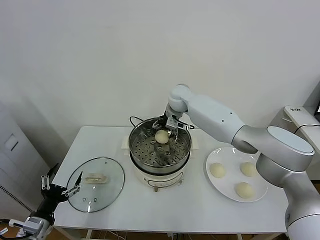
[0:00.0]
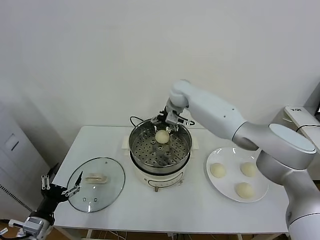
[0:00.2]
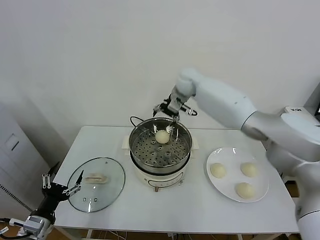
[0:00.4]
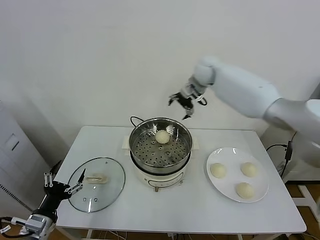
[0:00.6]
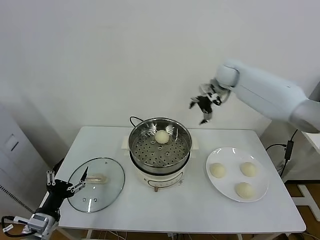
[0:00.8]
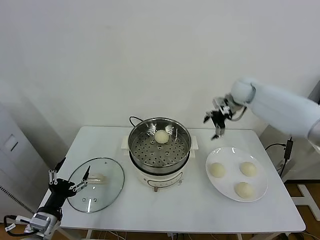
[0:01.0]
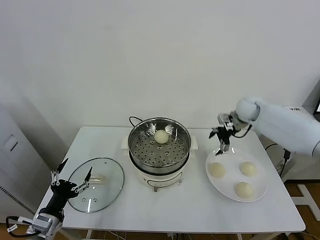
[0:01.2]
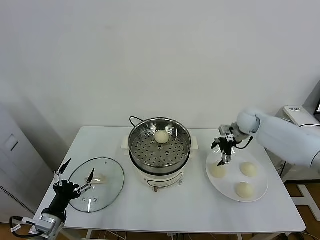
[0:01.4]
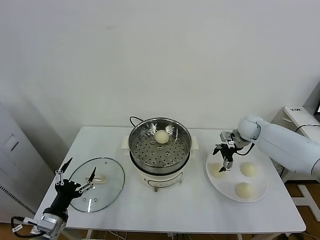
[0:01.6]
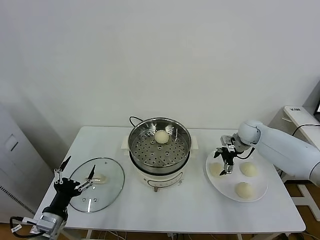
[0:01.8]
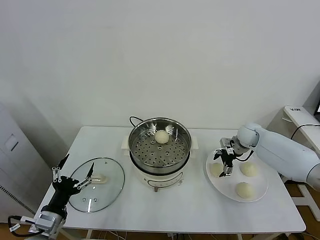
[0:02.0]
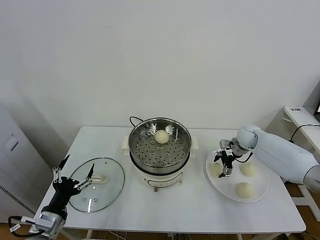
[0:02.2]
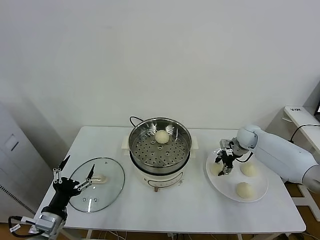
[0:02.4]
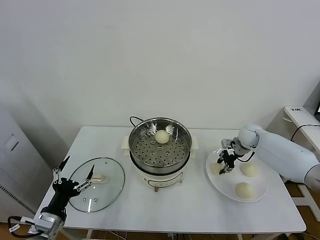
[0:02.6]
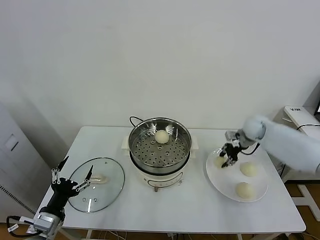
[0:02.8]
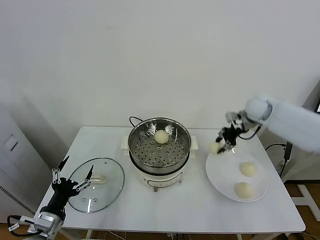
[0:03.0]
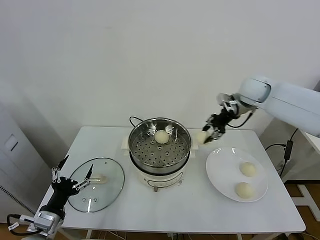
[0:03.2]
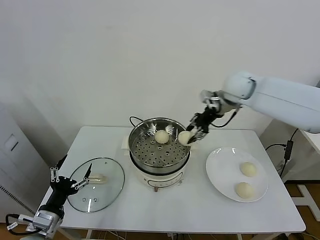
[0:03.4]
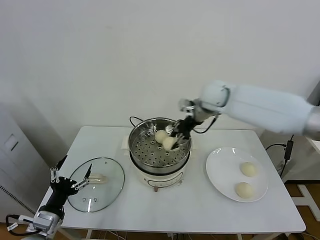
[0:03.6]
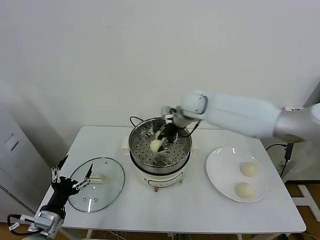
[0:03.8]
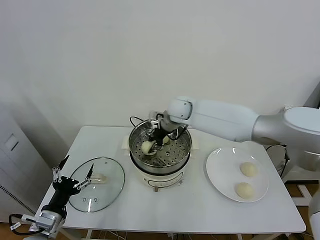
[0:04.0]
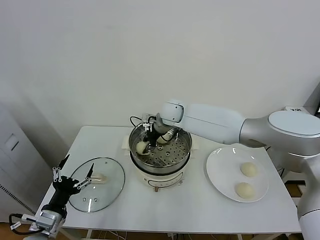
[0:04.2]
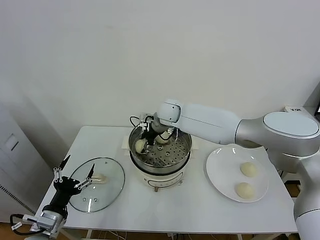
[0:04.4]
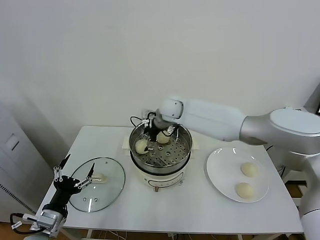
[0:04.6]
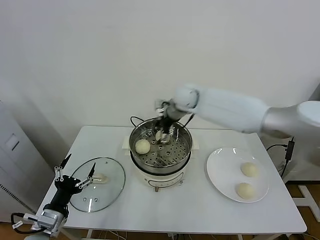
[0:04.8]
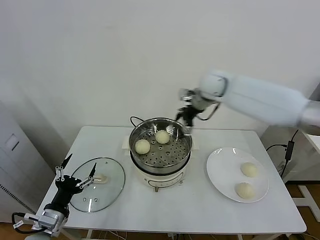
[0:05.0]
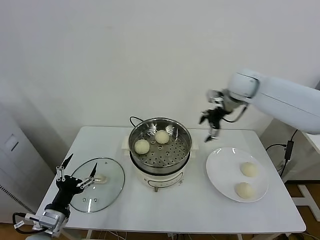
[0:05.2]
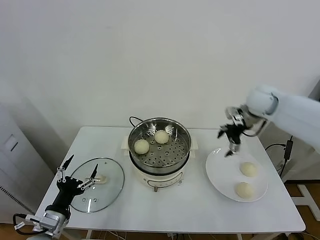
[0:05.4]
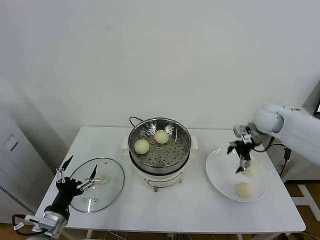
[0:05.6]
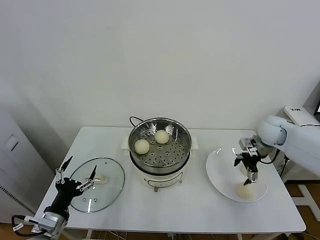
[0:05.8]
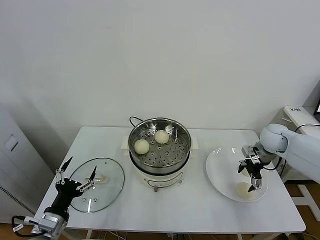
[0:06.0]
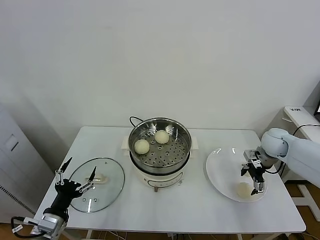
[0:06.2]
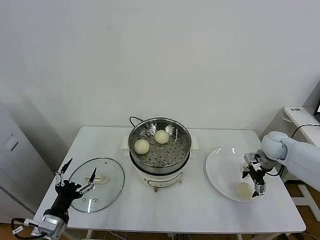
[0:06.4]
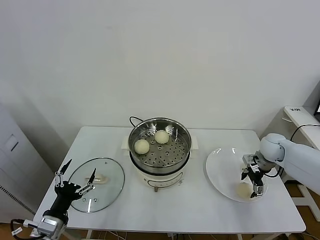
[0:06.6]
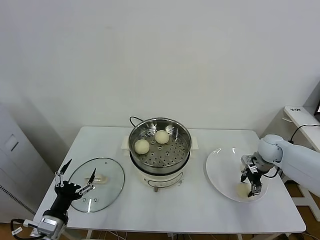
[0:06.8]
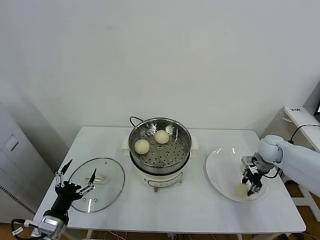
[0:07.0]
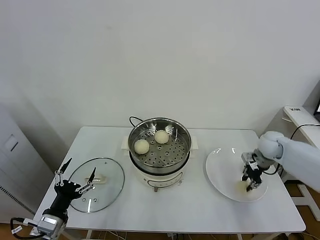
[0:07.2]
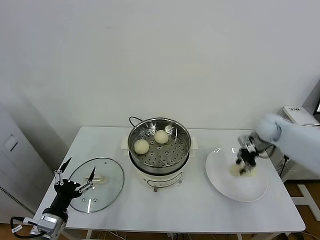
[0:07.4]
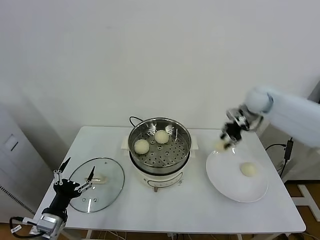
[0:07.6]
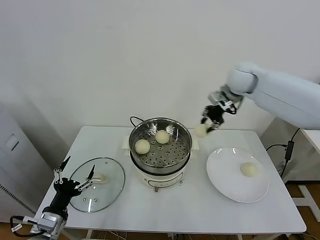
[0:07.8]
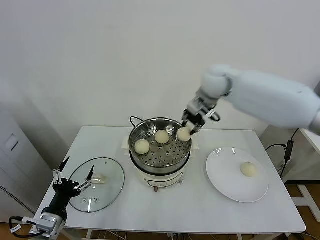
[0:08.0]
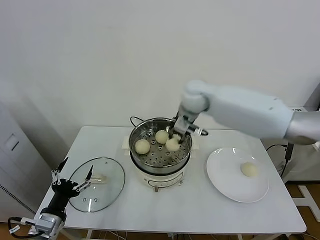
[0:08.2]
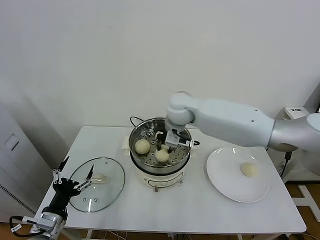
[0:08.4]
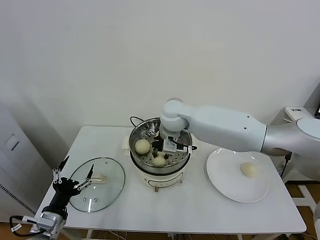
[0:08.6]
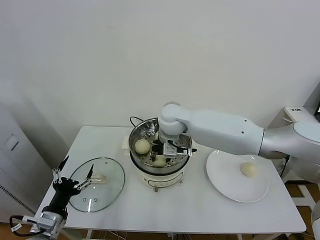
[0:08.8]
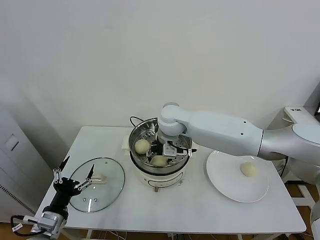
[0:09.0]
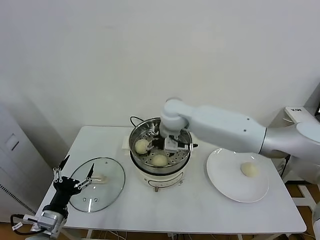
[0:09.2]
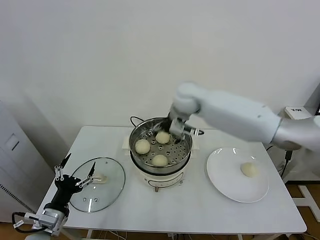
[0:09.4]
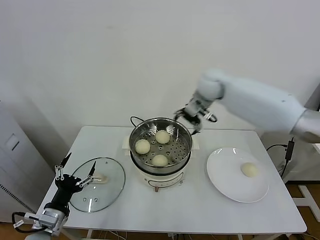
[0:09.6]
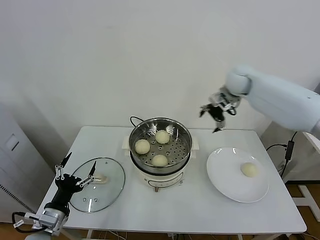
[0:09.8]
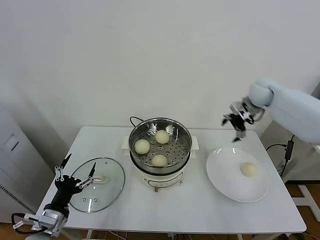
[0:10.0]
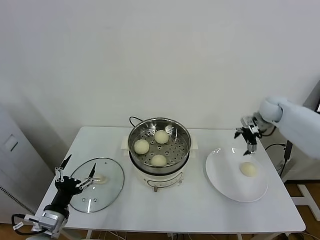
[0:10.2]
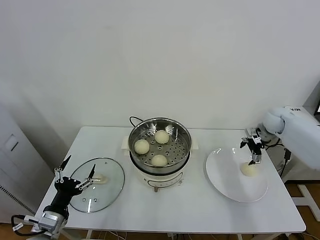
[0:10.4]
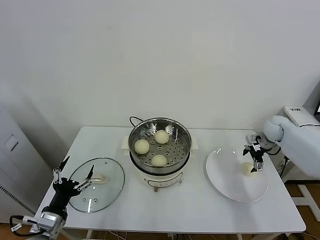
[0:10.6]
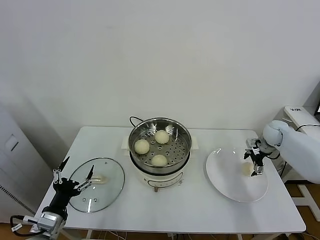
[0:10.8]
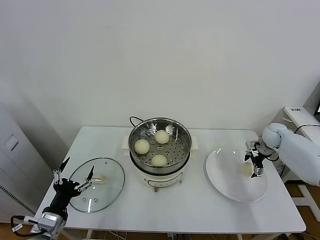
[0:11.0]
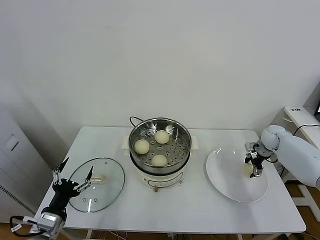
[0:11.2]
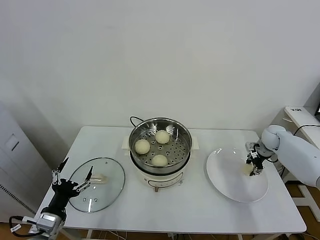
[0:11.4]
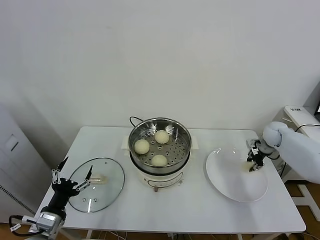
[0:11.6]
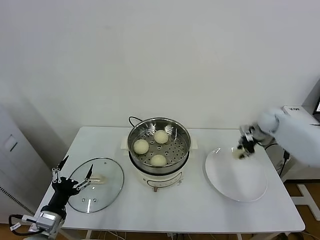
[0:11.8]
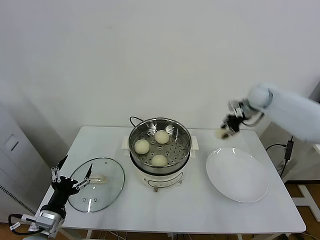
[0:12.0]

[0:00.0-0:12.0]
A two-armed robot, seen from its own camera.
Task of the whole recording: take steamed baozi put them in steamer.
Step, 0:00.4 to 0:02.6: Grasp the baozi in the plate with right gripper.
Step, 0:02.8 to 0:04.6: Place the baozi on the steamer with right gripper.
Step, 0:04.8 to 0:06.8: Grasp the baozi in the plate with right gripper.
Step, 0:07.2 to 0:09.0: Place the baozi on the steamer with right gripper.
Step, 0:09.2 to 0:11.4: Grasp the baozi in the plate with right gripper.
0:00.0 to 0:01.6: The right gripper heads to the right, covering approximately 30 cm.
0:01.6 to 0:03.0: The right gripper heads upward, covering some 15 cm, and closes.
0:03.0 to 0:04.4: The right gripper goes some 30 cm to the left, and opens up.
0:04.4 to 0:06.0: The right gripper moves to the right, some 35 cm.
0:06.0 to 0:07.6: The right gripper moves upward, to the left and forward, about 20 cm, and closes its fingers.
0:07.6 to 0:09.0: The right gripper is displaced to the left by roughly 30 cm, and opens its fingers.
0:09.0 to 0:10.4: The right gripper heads to the right, covering some 40 cm.
0:10.4 to 0:12.0: The right gripper is displaced upward and to the left by about 15 cm, and closes.

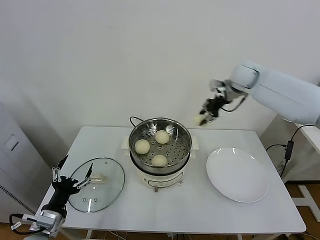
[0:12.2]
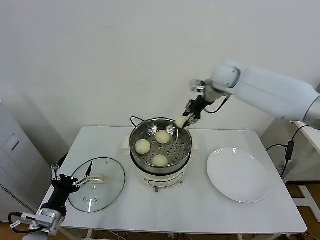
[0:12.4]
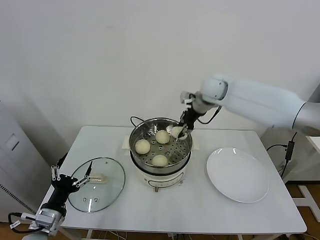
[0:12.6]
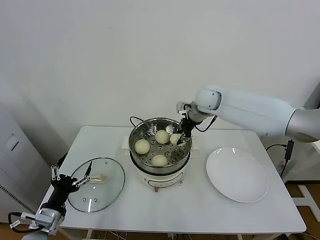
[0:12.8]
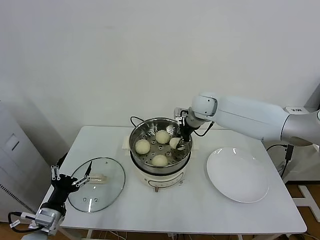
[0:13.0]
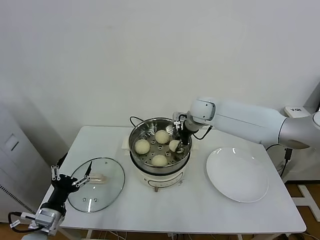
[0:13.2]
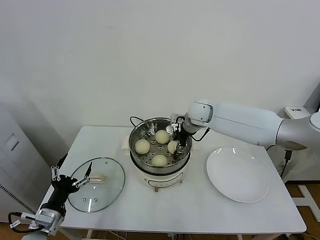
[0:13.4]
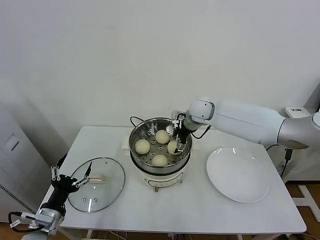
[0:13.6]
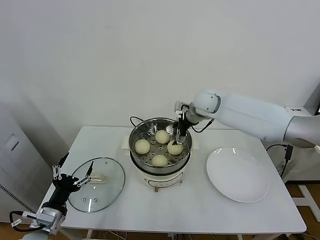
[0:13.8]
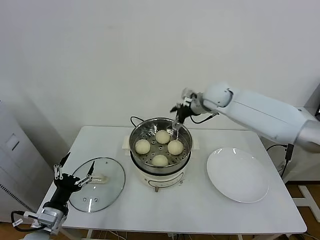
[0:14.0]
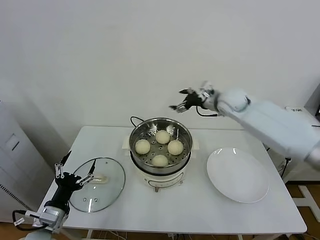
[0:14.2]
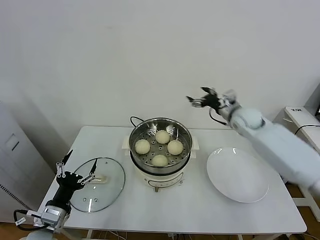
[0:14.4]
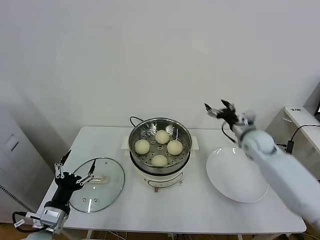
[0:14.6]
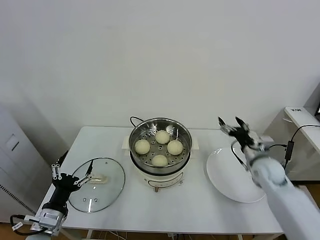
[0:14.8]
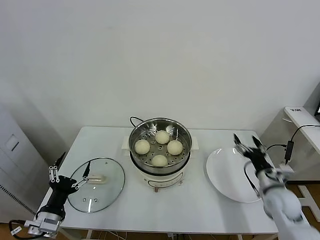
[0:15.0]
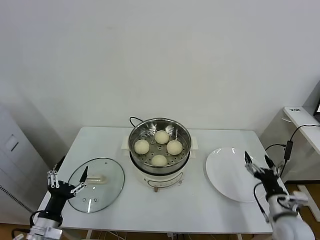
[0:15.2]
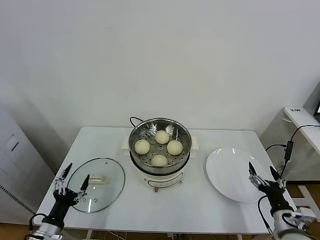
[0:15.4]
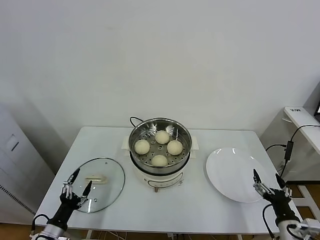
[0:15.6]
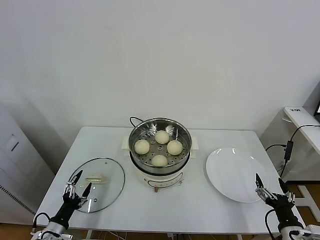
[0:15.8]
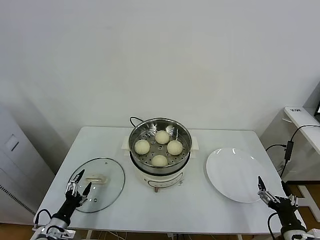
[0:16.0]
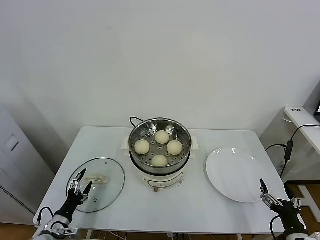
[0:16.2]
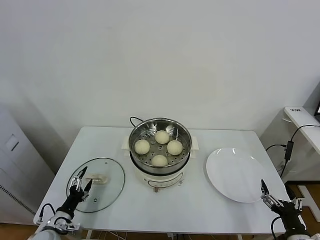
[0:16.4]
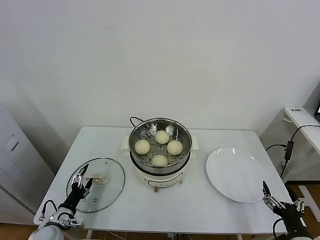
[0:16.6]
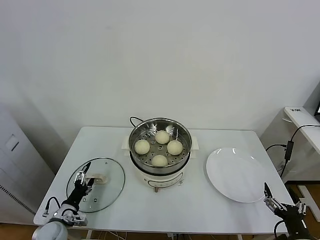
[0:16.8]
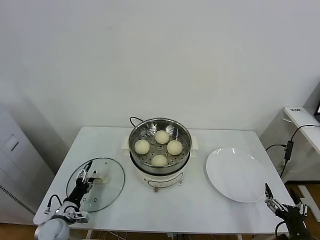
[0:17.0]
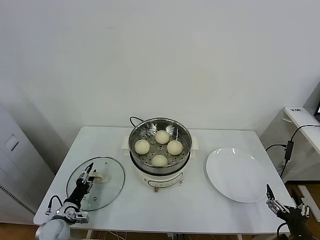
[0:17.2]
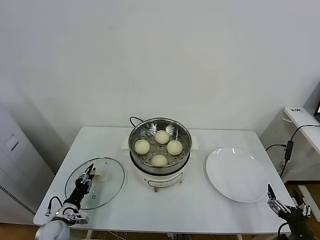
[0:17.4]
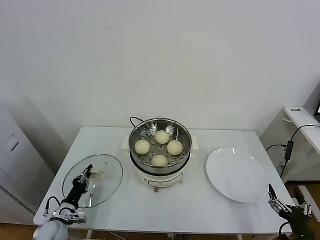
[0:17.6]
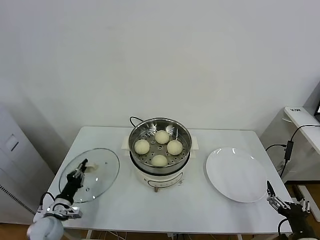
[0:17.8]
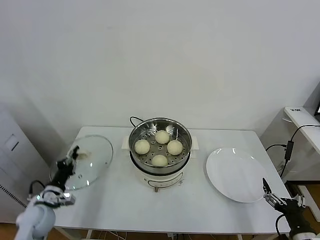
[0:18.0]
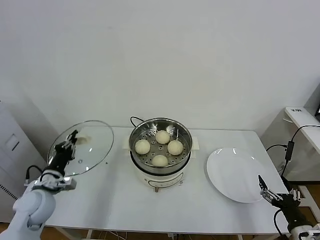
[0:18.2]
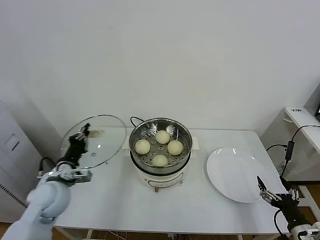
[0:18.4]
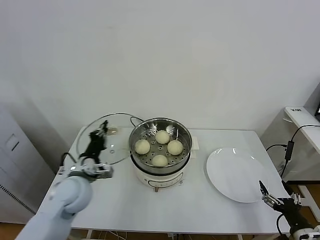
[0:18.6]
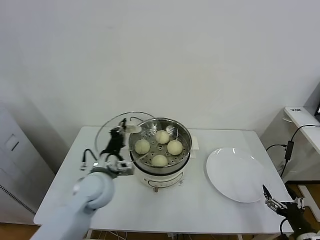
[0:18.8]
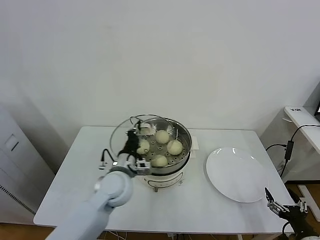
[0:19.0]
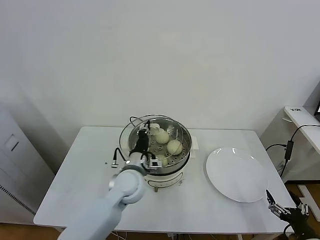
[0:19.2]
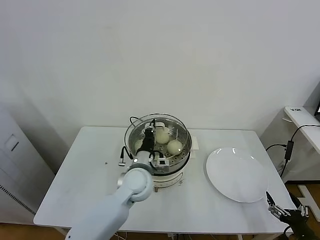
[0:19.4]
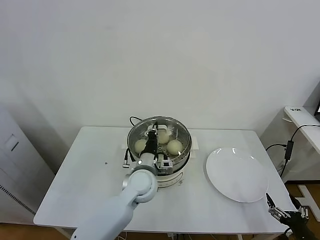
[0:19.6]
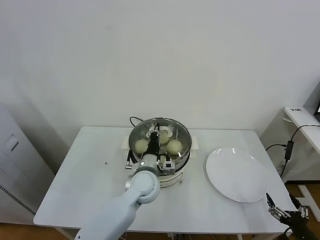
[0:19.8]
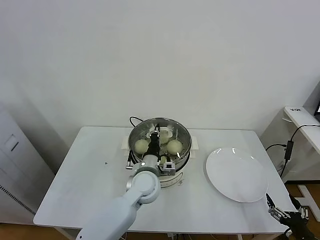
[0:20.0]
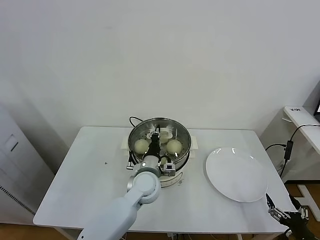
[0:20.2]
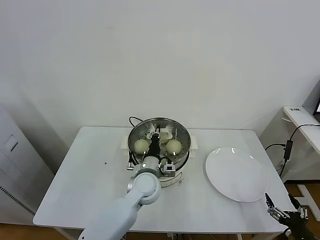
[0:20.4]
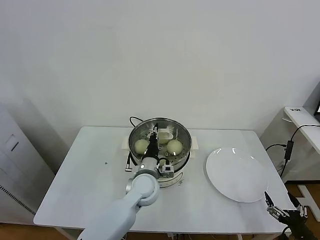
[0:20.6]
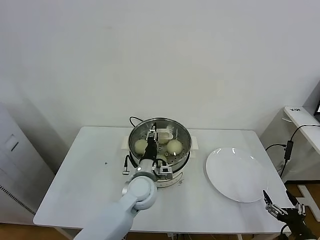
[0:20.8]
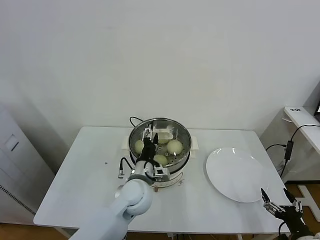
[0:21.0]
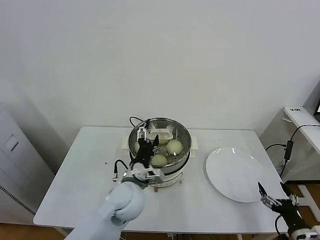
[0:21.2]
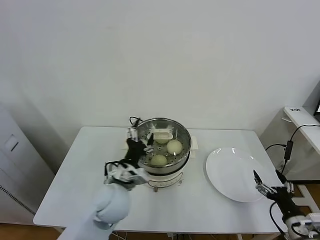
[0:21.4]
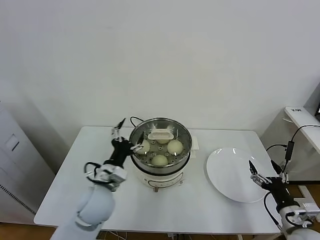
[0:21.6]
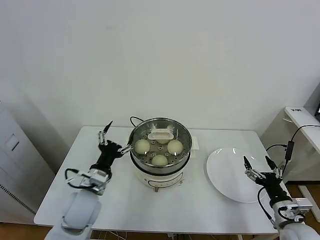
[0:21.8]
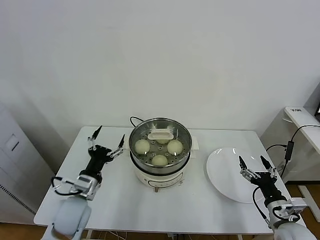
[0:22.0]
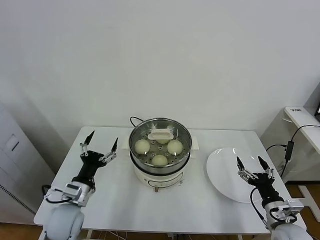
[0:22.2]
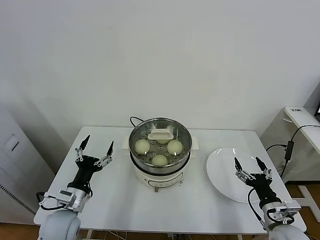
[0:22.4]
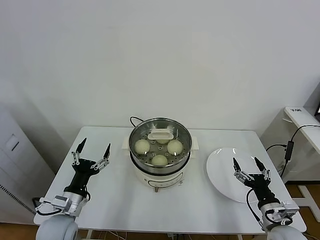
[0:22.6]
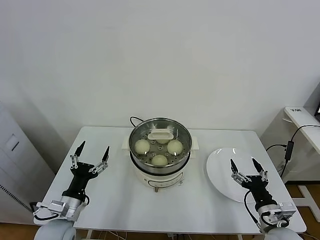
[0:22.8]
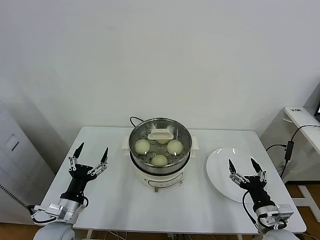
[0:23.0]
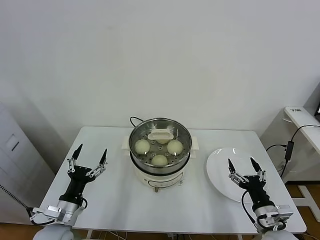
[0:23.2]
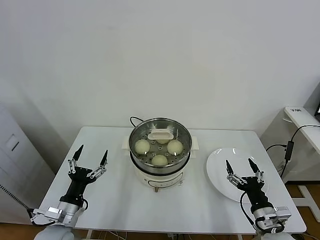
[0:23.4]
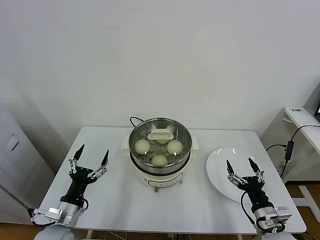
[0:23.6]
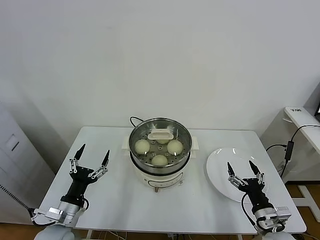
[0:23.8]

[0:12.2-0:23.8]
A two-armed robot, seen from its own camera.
Task of the whole recording: take steamed baozi put them in steamer.
Step, 0:12.2 to 0:13.6: Place the baozi on the steamer with right gripper.
Step, 0:13.8 to 0:17.6: Grasp the pot lid with left gripper.
Step, 0:17.8 to 0:20.6: Place the pot lid on the steamer with left gripper.
0:12.2 to 0:13.6: The right gripper shifts some 15 cm to the left and downward, and opens up.
0:13.6 to 0:15.0: The right gripper shifts roughly 40 cm backward, to the right and downward.
0:15.0 to 0:16.6: The left gripper travels downward and forward by some 15 cm. The right gripper heads backward, covering approximately 20 cm.
0:16.6 to 0:18.0: The left gripper travels upward by about 5 cm, and closes up.
0:18.0 to 0:19.4: The left gripper travels to the right by about 30 cm. Meanwhile the right gripper ends up approximately 5 cm from where it was.
0:19.4 to 0:21.0: The left gripper opens its fingers.
0:21.0 to 0:22.4: The left gripper is displaced to the left by roughly 20 cm, while the right gripper travels forward and to the left by some 10 cm.
0:22.4 to 0:23.8: The grippers stay close to where they were, moving slightly.
